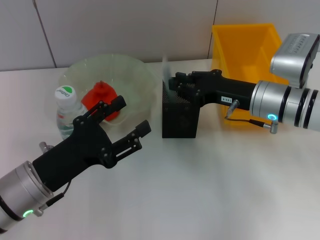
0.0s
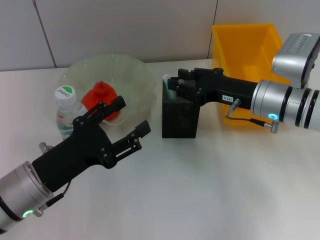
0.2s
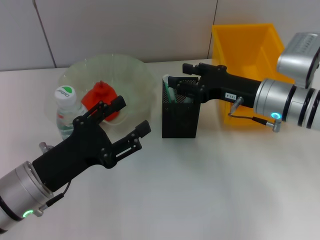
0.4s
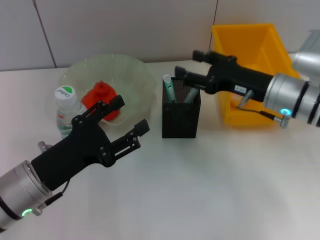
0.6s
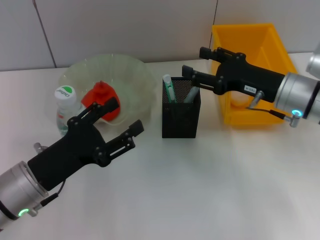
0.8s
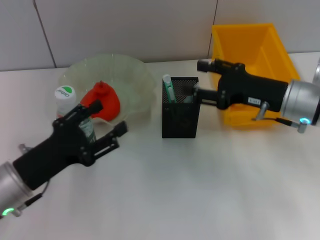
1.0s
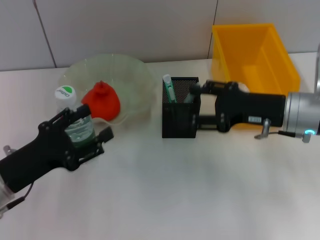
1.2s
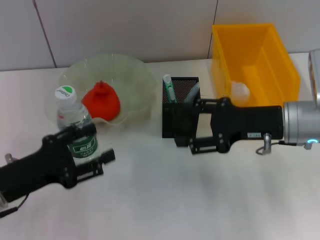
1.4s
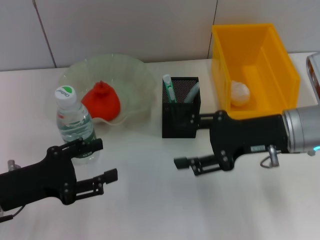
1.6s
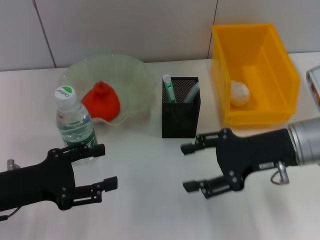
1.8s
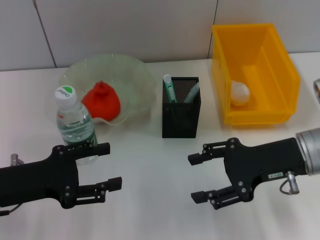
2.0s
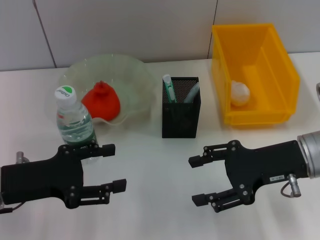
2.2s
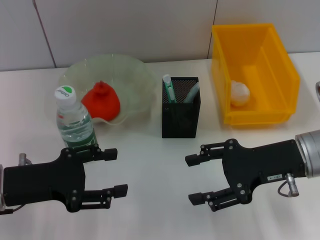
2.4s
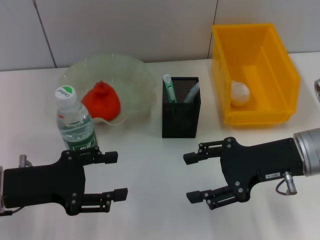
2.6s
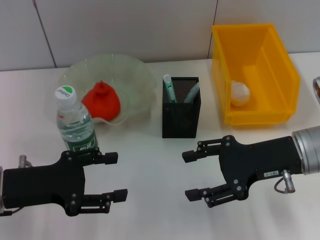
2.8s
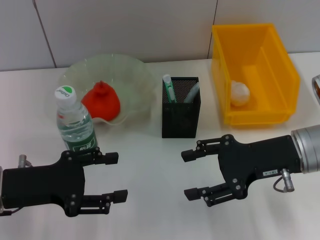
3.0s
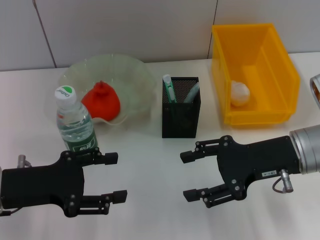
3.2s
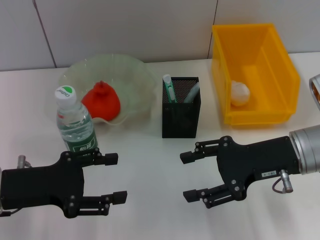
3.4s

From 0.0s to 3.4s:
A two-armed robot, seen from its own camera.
From 0.0s to 1.6s: The right gripper travels backward by some 5 cm, and opens. Meanwhile the left gripper is displaced to the left by roughly 5 cm.
From 1.6s to 3.4s: The grippers move only a little.

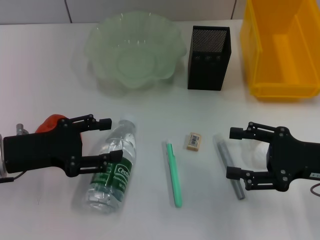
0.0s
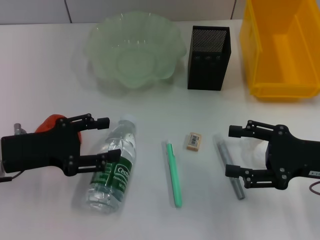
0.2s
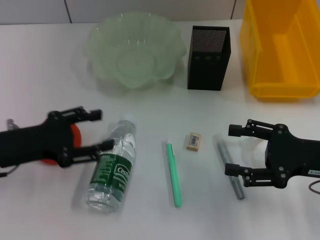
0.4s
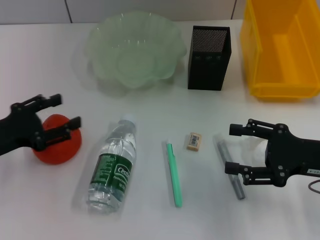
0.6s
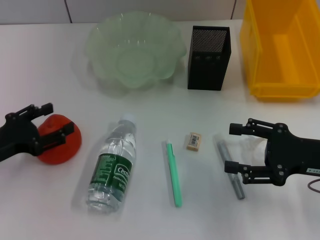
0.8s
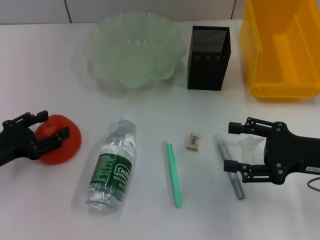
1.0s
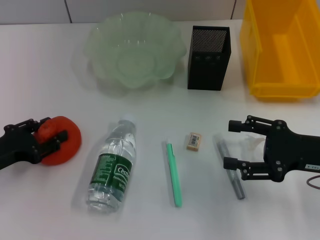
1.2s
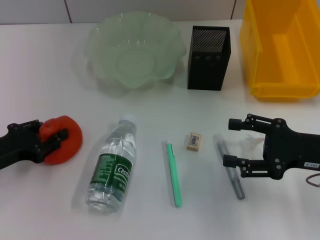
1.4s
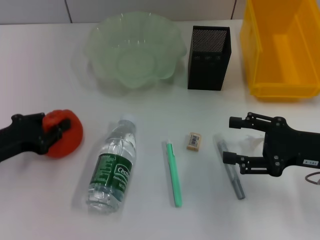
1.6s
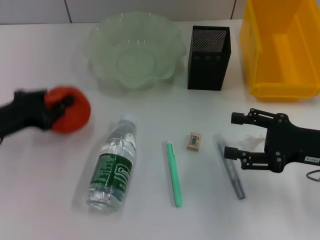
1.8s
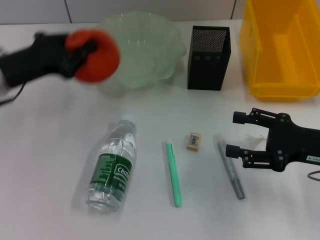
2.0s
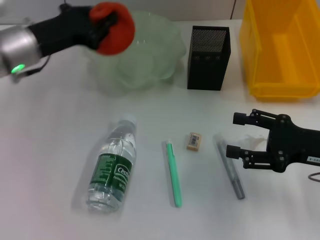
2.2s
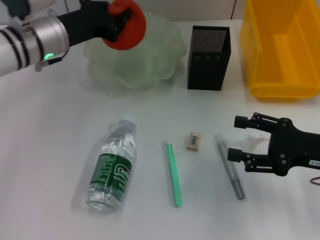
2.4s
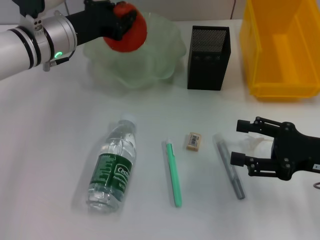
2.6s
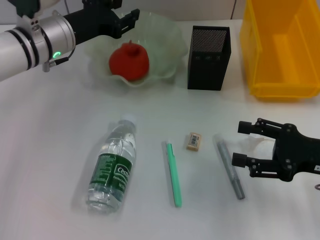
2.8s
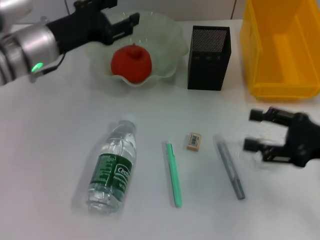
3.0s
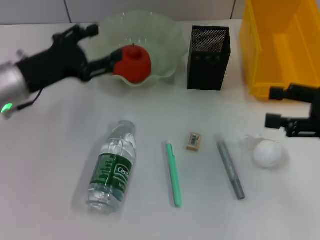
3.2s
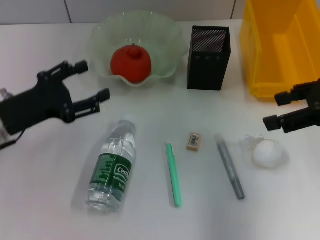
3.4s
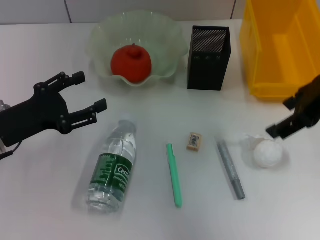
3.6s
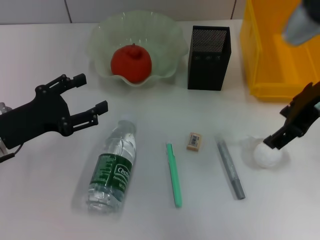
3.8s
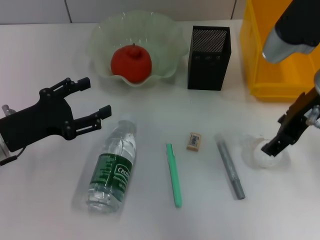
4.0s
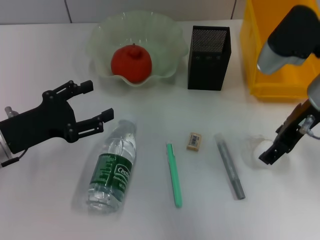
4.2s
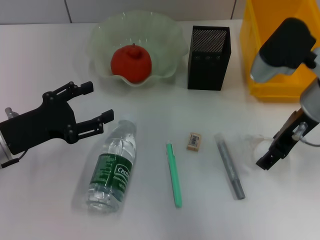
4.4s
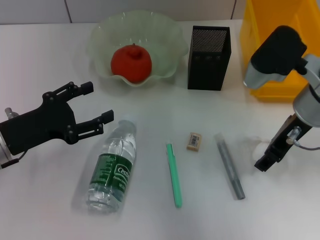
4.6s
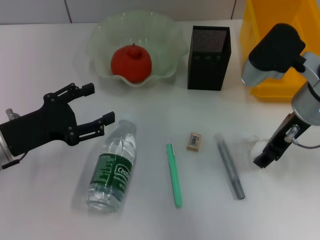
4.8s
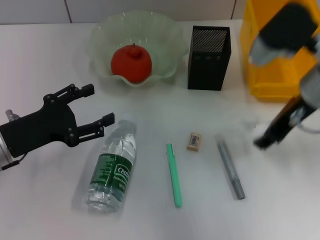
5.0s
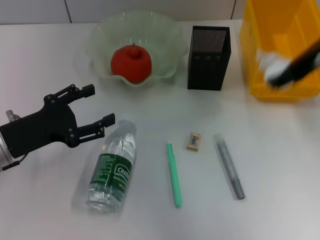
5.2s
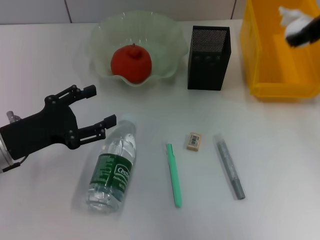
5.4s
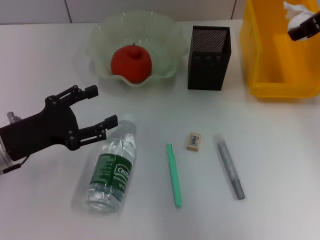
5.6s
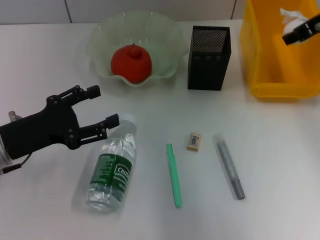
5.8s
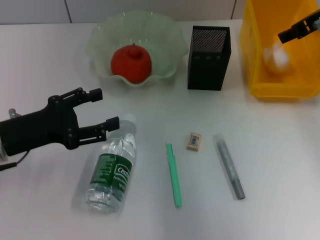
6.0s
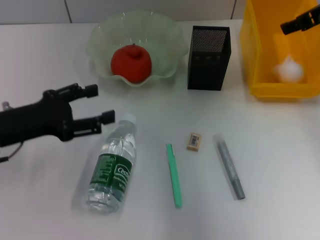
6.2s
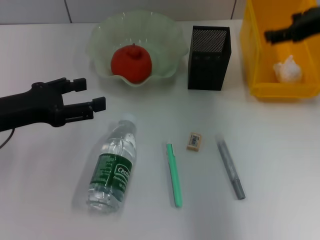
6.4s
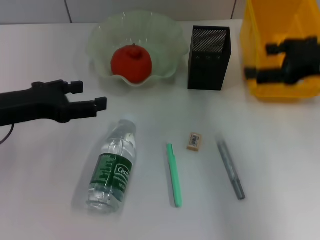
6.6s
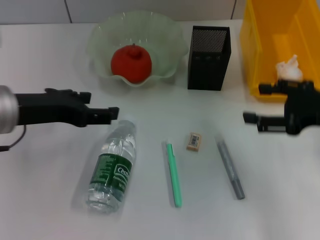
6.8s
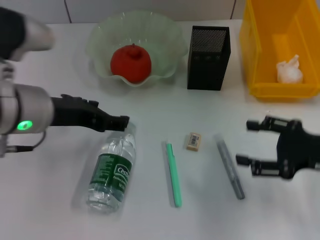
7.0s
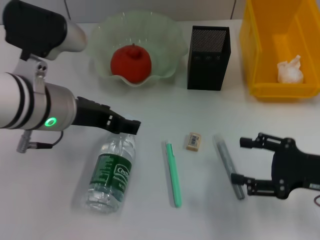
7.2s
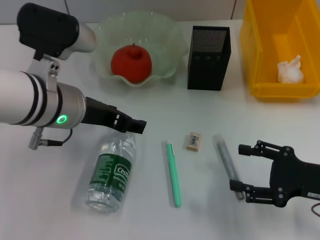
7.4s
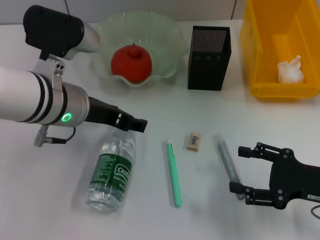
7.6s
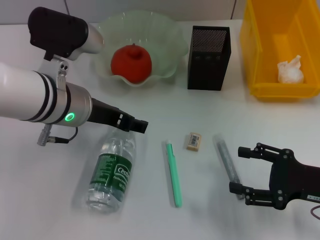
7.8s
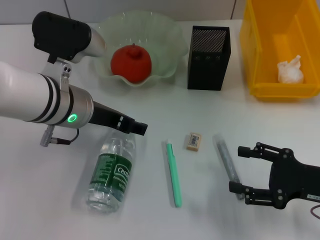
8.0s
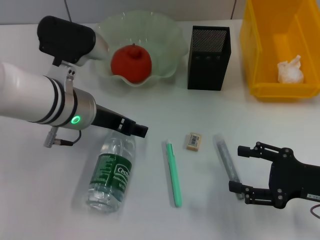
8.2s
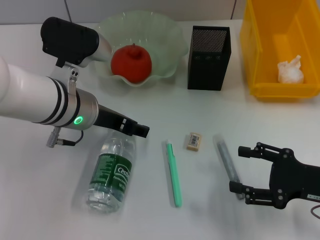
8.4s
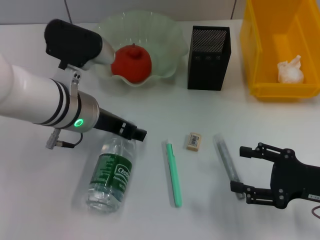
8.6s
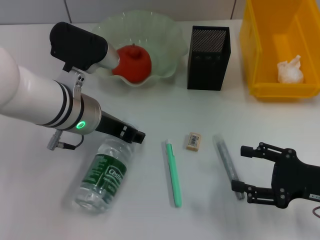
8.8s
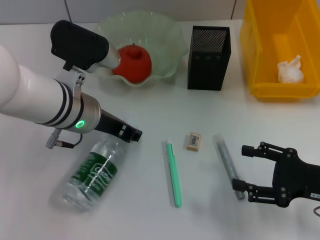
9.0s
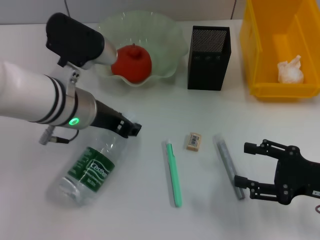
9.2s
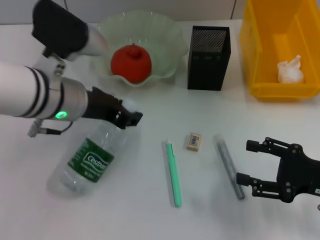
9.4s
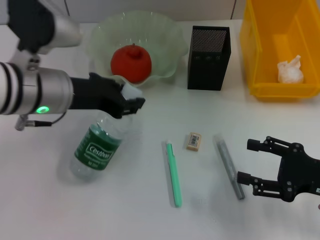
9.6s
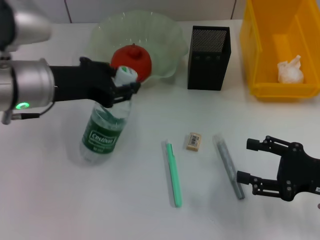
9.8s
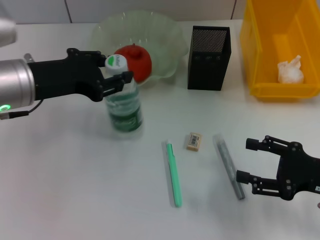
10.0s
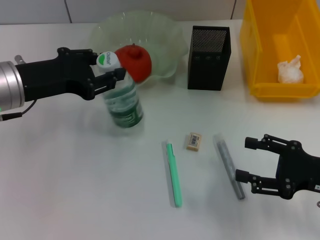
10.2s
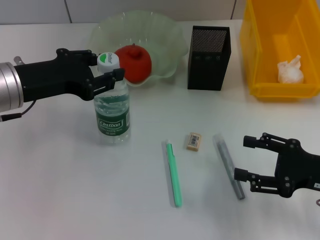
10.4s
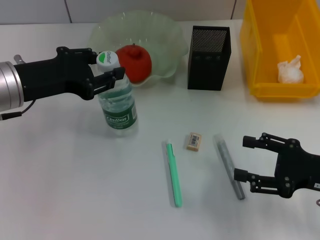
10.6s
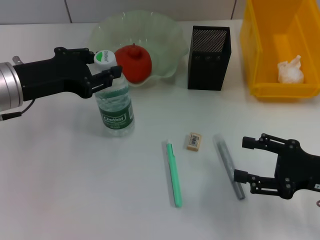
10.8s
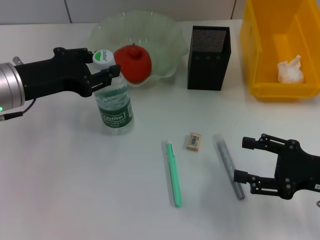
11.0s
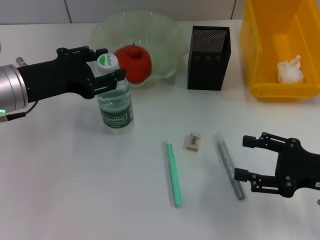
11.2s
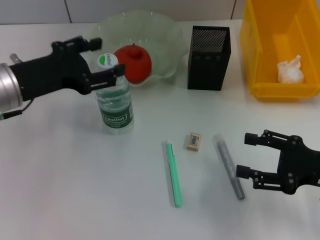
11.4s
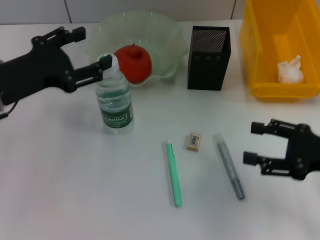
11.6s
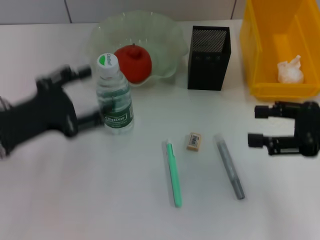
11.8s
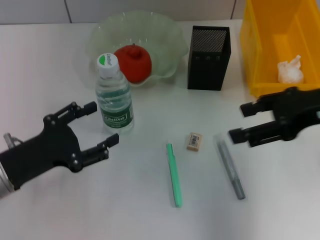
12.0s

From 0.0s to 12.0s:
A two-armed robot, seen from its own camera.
Step, from 0.0s to 1.2s: Grab the orange with the left hand.
Step, from 1.6s to 2.8s: Place the orange into the fruit bowl with the left hand.
Step, from 3.0s to 4.4s: Grab the paper ball with the right hand.
Step, from 4.8s to 6.4s: Place the paper ball into the trash can with the right hand.
Step, from 6.6s to 8.8s: Grab the water bottle with the left hand.
Step, from 9.0s to 11.0s: Place the water bottle on the table with the left hand.
From 0.0s to 1.6s: The left gripper shifts by about 5 cm, and closes up.
From 1.6s to 3.0s: The left gripper is displaced forward, to the right and upward by about 20 cm, and opens up.
From 3.0s to 4.4s: The left gripper travels backward, to the left and downward by some 15 cm, and opens up, while the right gripper goes some 15 cm to the left, forward and upward.
From 4.4s to 6.0s: The right gripper is displaced forward, upward and to the right by roughly 10 cm.
From 6.0s to 7.6s: The left gripper is displaced to the right and upward by about 15 cm, while the right gripper is displaced backward and downward by about 25 cm.
From 7.6s to 9.0s: The left gripper closes.
From 9.0s to 10.4s: The left gripper is displaced to the left by about 10 cm.
From 10.4s to 12.0s: The left gripper goes some 15 cm downward and backward, and opens up. Meanwhile the right gripper travels upward and forward by about 15 cm.

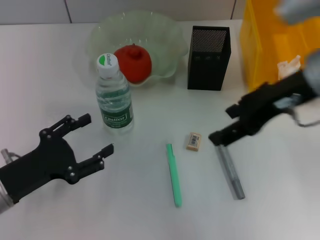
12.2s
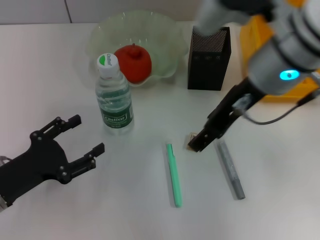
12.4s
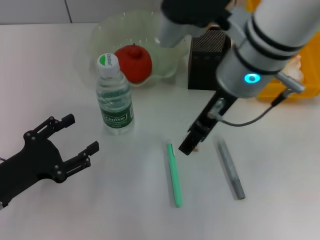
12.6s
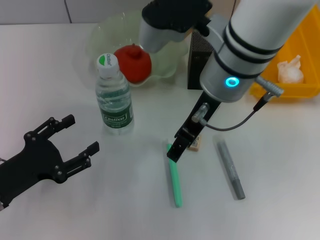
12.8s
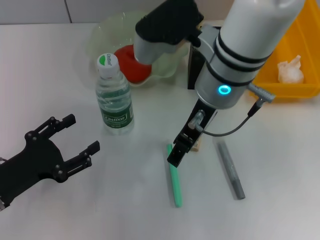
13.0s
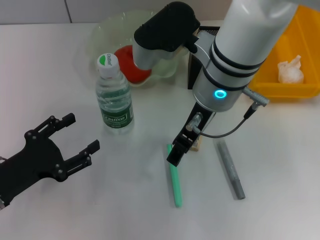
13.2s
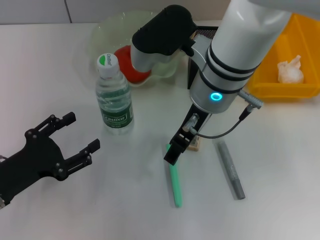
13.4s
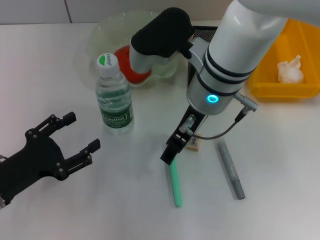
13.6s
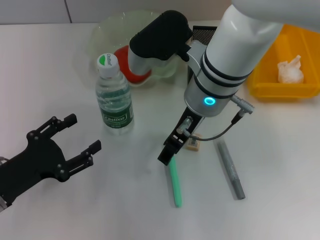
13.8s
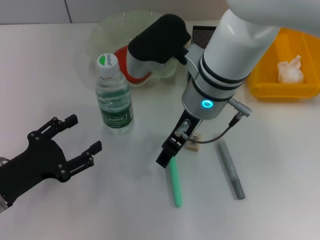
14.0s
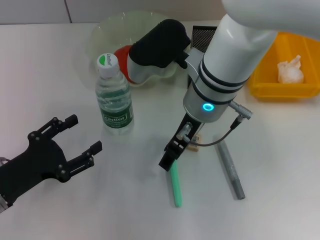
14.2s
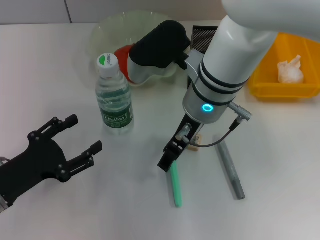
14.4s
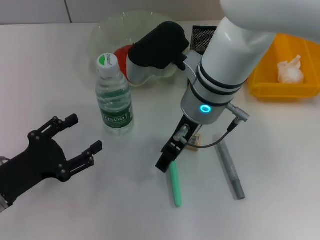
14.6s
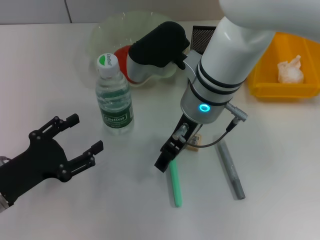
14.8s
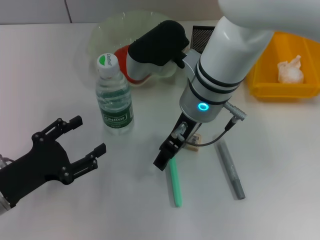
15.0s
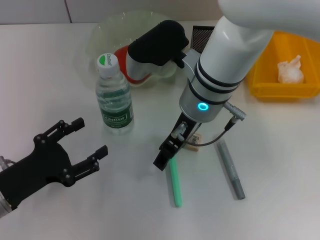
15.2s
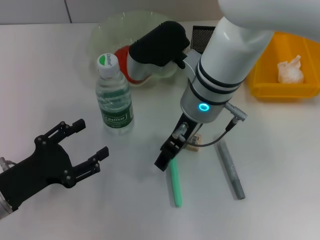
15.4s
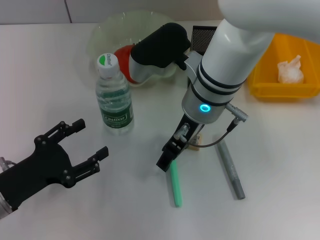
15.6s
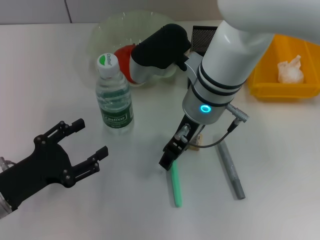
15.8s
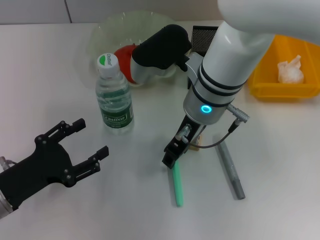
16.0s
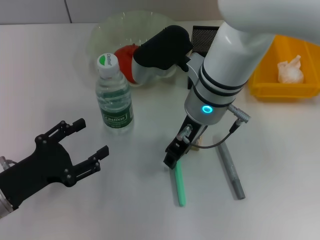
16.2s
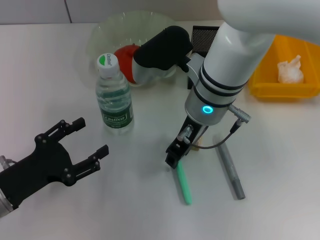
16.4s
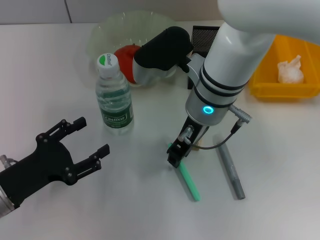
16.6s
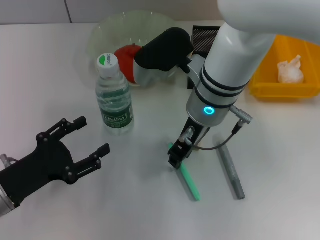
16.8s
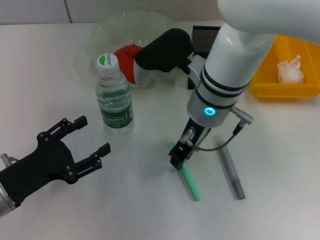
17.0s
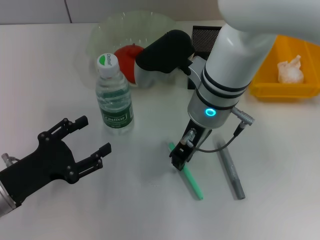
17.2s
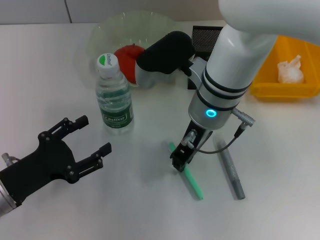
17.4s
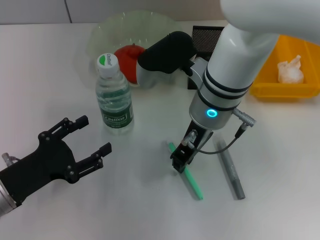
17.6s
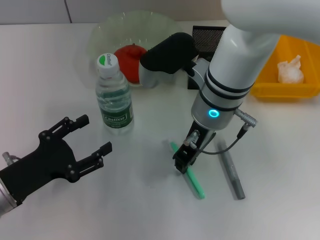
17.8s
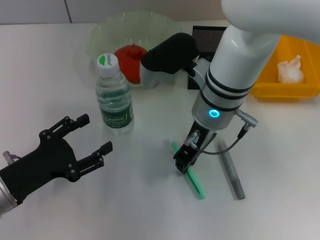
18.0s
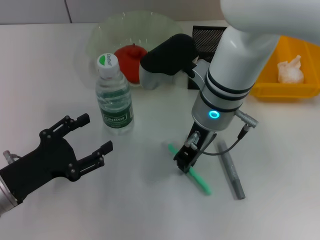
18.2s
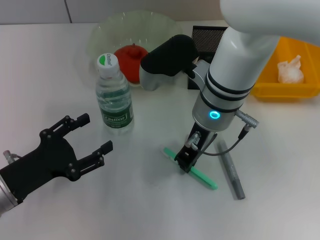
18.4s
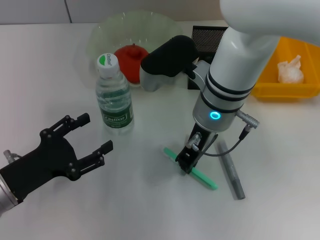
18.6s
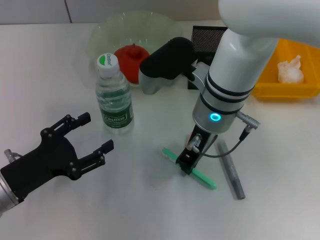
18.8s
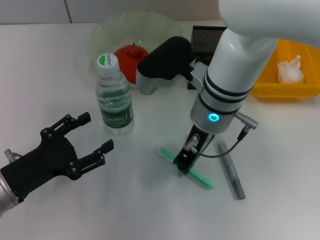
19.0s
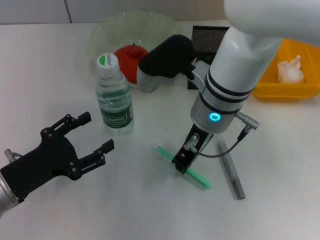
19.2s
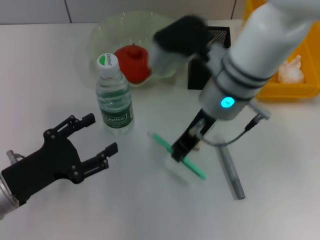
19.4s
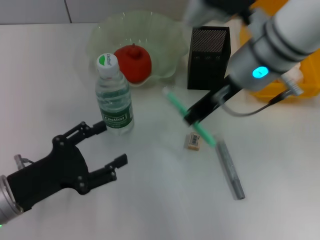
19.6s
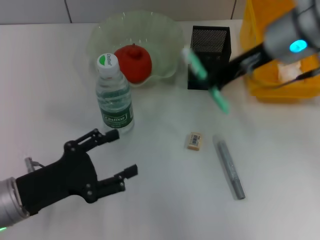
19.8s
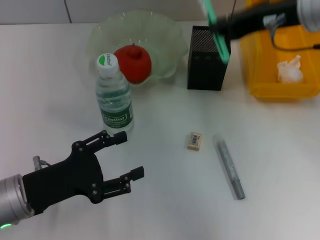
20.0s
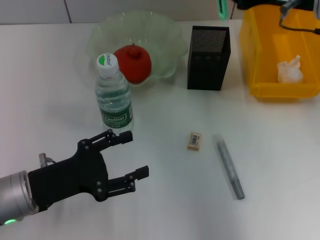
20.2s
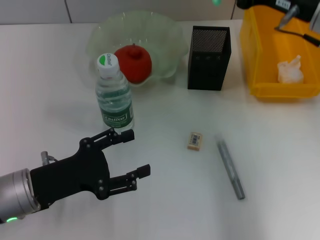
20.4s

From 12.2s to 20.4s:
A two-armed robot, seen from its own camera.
Step, from 12.2s to 18.6s: Grab the blue utility knife with the right hand.
From 12.2s to 13.8s: The right gripper goes roughly 15 cm to the left and downward.
From 13.8s to 15.4s: The grippers move only a little.
From 15.4s to 17.2s: The right gripper closes its fingers.
From 17.2s to 18.8s: Both grippers stay put.
From 18.8s to 20.4s: The right gripper moves to the right, about 15 cm.
